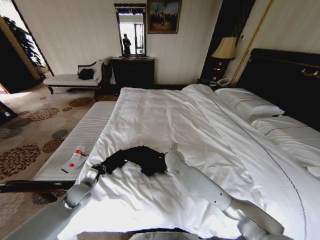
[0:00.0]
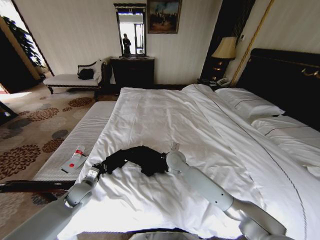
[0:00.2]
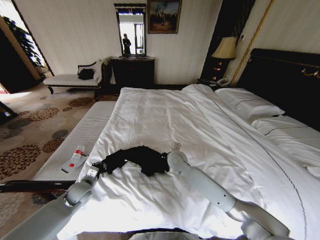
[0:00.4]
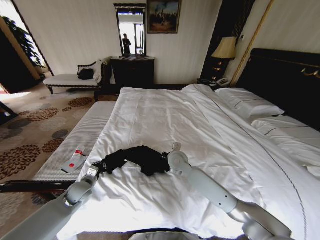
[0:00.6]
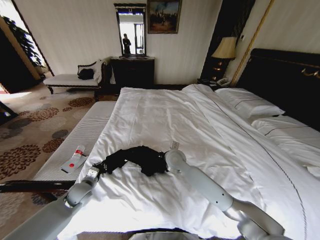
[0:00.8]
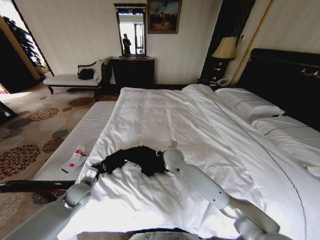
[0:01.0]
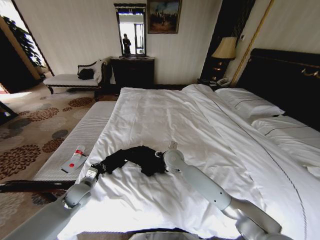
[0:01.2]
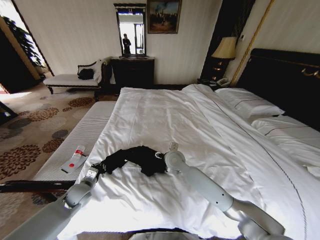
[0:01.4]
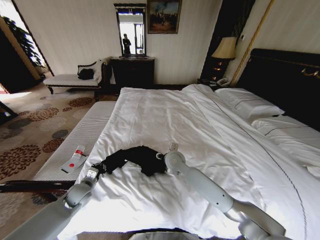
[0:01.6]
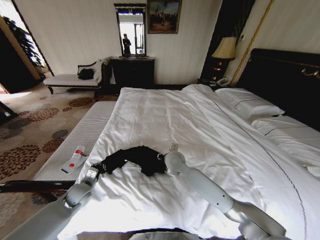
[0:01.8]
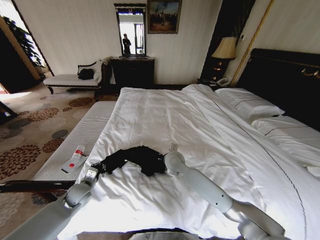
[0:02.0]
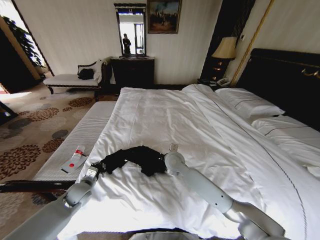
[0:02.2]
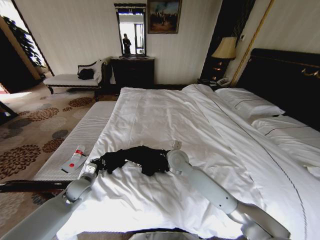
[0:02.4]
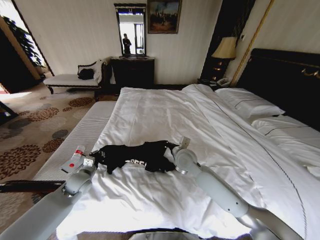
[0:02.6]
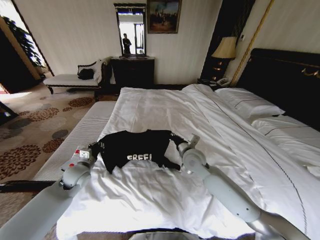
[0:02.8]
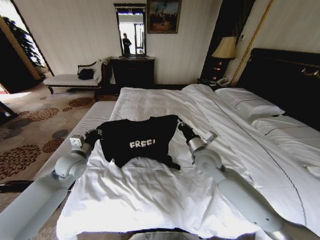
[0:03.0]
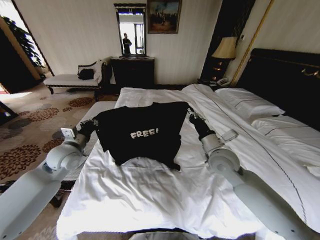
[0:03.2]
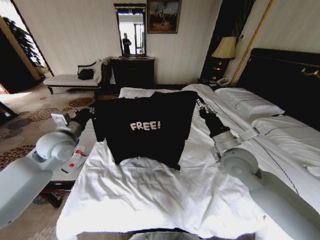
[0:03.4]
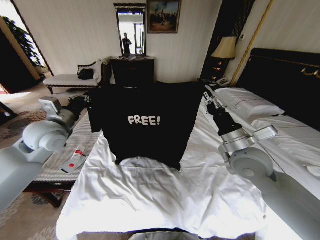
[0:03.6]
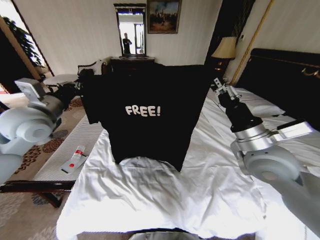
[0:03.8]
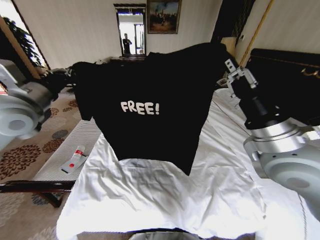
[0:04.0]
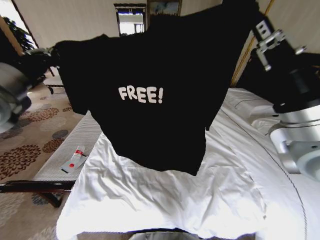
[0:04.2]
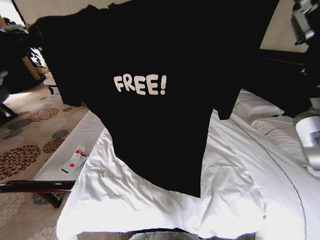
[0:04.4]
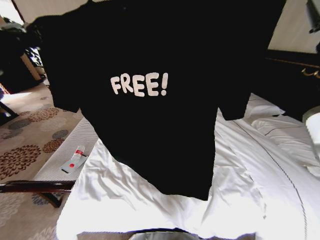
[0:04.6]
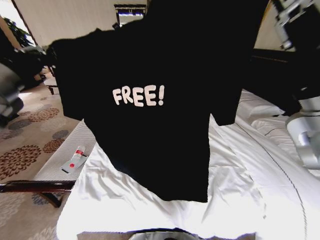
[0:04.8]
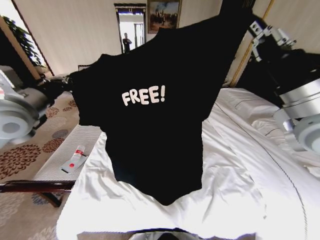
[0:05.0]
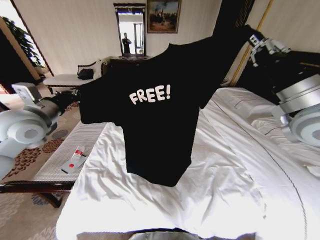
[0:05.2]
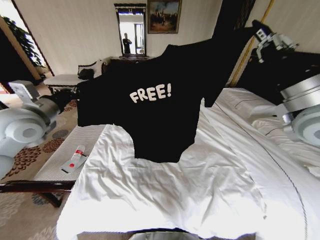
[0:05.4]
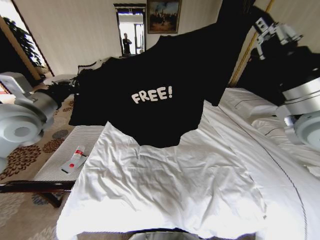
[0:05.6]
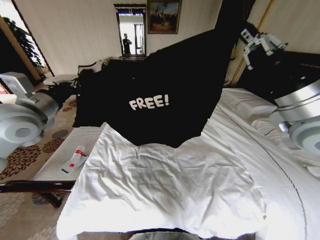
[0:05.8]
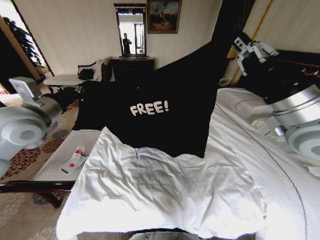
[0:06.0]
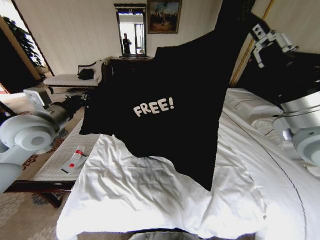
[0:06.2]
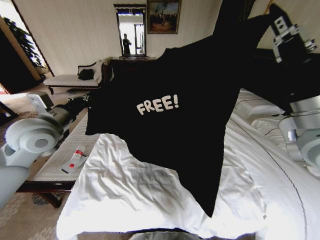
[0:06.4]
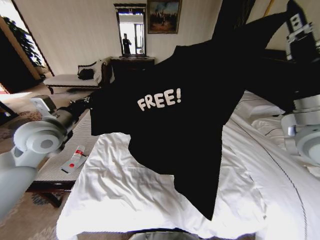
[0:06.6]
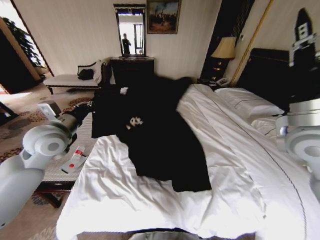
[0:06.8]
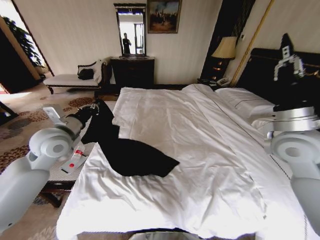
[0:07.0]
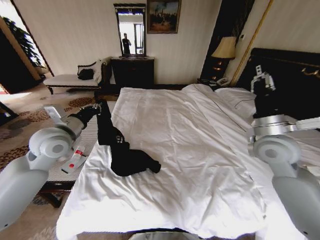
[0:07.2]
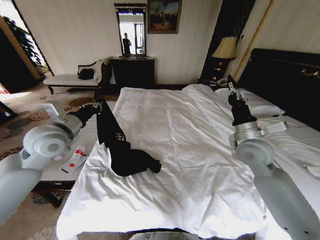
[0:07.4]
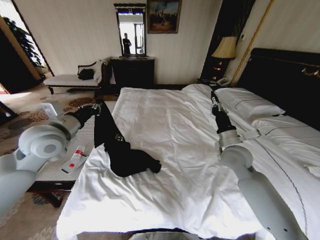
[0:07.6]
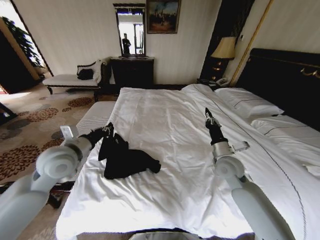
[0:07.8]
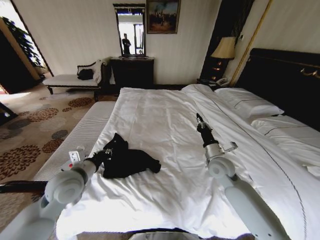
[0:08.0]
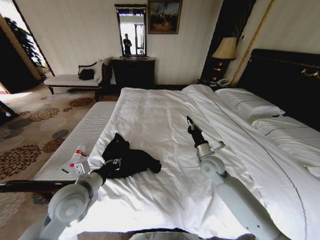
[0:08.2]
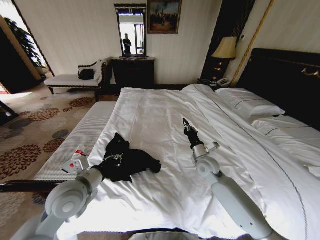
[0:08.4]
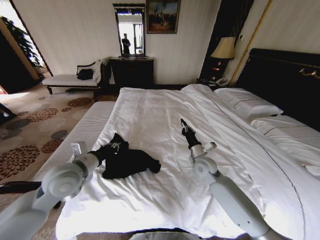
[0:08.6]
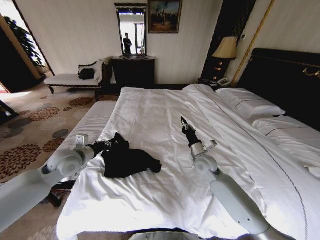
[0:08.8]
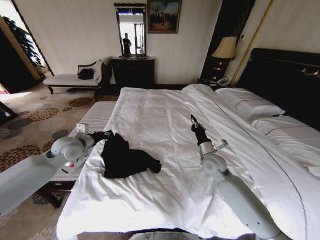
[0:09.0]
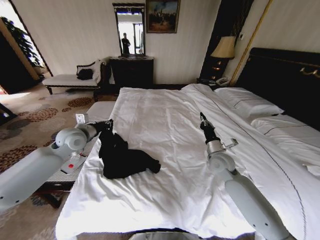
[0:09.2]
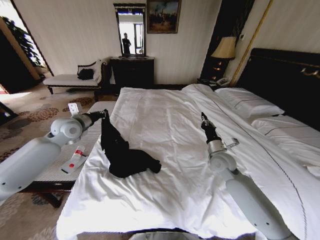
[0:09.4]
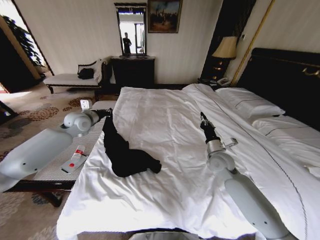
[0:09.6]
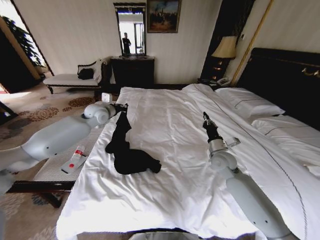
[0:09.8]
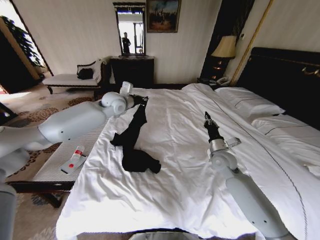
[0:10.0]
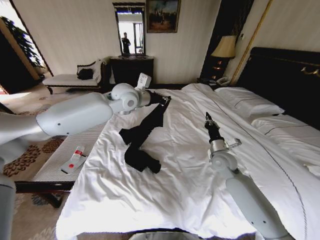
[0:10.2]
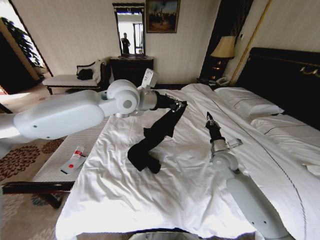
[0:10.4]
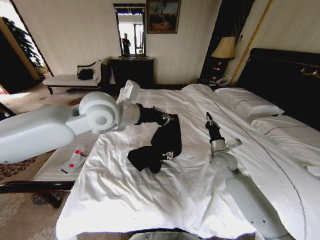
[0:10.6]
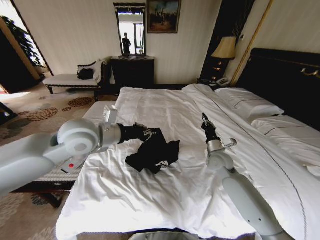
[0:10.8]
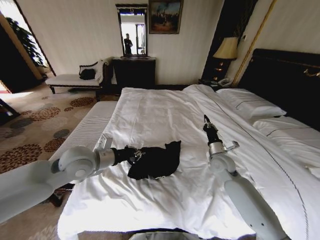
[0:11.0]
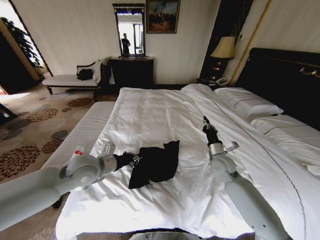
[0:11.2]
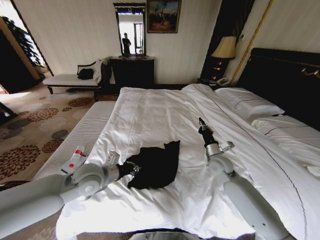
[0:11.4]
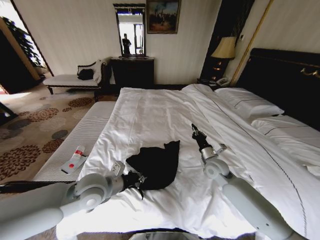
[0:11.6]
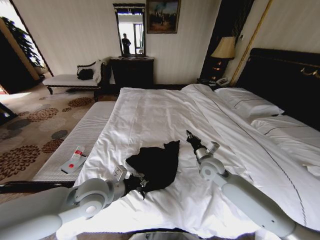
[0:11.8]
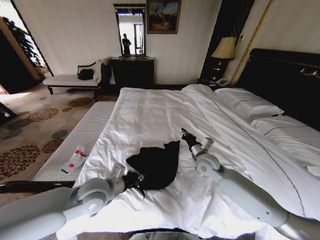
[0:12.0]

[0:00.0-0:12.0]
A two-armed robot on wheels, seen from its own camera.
Task of the whole recording: Fold the clothes on the bed.
0:01.6 to 0:03.0: The left gripper shifts roughly 15 cm upward; the right gripper shifts about 15 cm to the right and upward, and closes.
0:03.0 to 0:04.4: The left gripper is displaced upward by about 30 cm, while the right gripper heads upward and backward, covering roughly 30 cm.
0:04.4 to 0:06.0: The right gripper moves forward, roughly 5 cm; the left gripper heads downward and forward, covering approximately 10 cm.
0:06.0 to 0:07.6: The right gripper is displaced downward and forward by about 20 cm, while the left gripper heads downward, covering some 5 cm.
0:07.6 to 0:09.0: Both grippers move downward, roughly 10 cm. The left gripper moves roughly 10 cm backward and comes back.
0:09.0 to 0:10.4: The left gripper heads to the right and upward, covering approximately 30 cm, while the right gripper heads to the right, covering approximately 5 cm.
0:10.4 to 0:12.0: The left gripper goes approximately 30 cm downward and backward. Meanwhile the right gripper heads to the left, covering about 10 cm.

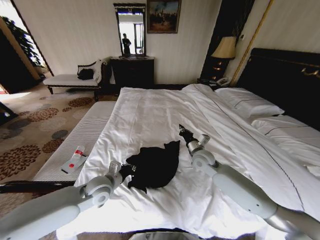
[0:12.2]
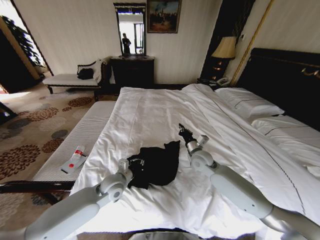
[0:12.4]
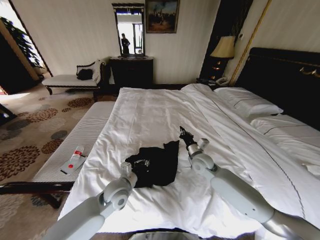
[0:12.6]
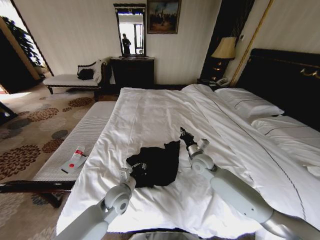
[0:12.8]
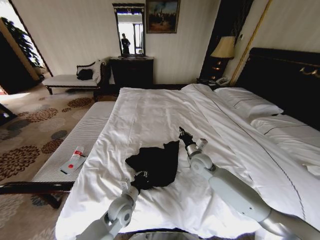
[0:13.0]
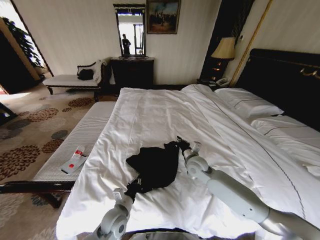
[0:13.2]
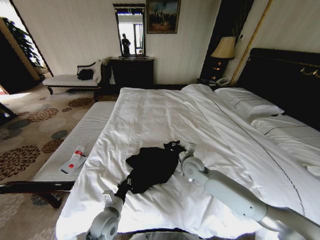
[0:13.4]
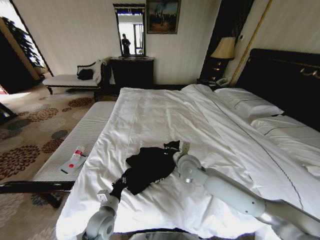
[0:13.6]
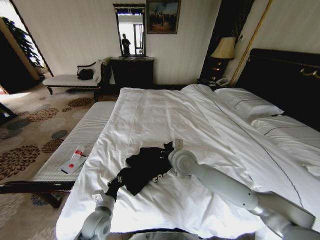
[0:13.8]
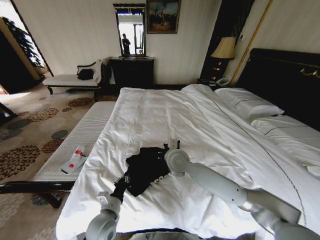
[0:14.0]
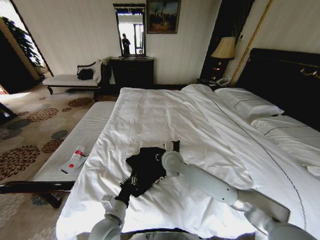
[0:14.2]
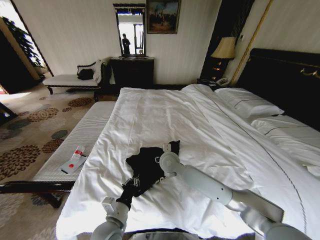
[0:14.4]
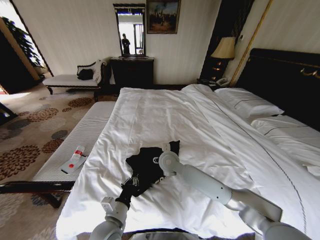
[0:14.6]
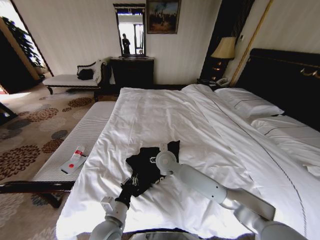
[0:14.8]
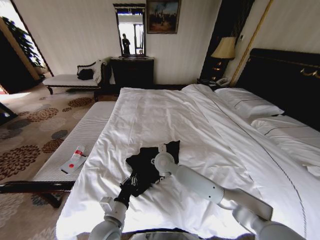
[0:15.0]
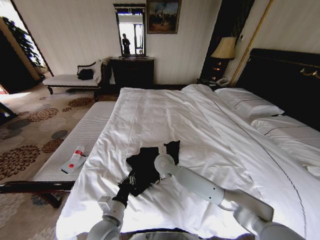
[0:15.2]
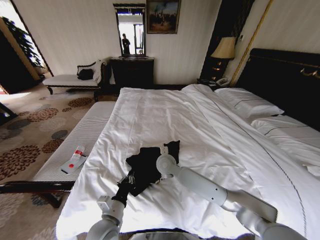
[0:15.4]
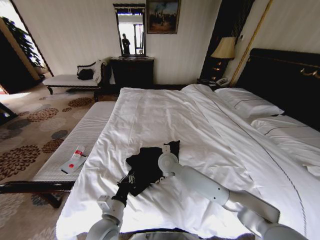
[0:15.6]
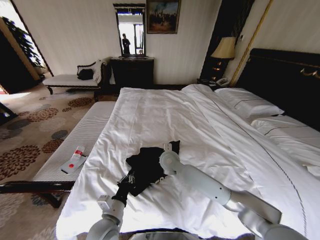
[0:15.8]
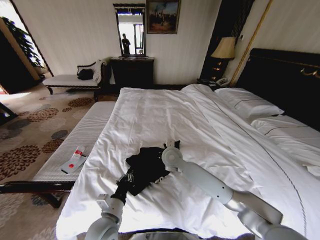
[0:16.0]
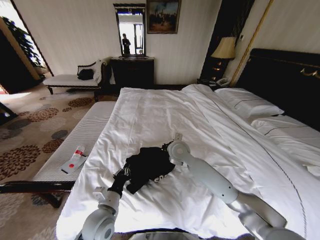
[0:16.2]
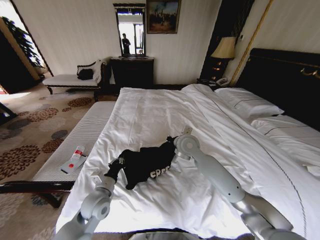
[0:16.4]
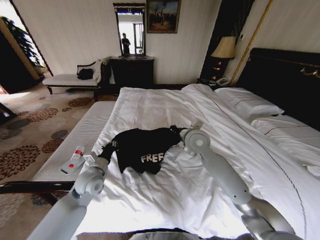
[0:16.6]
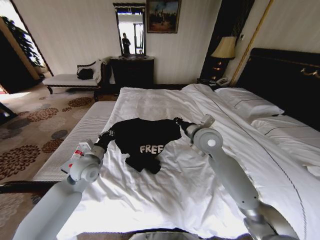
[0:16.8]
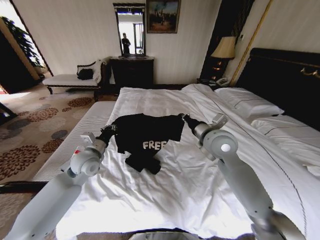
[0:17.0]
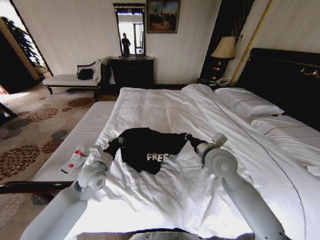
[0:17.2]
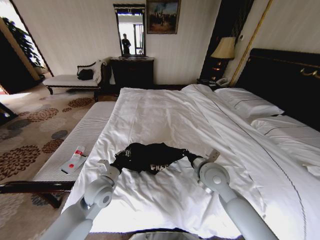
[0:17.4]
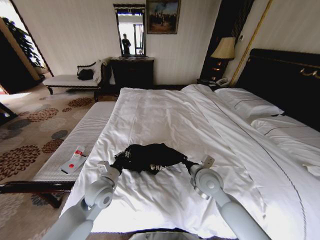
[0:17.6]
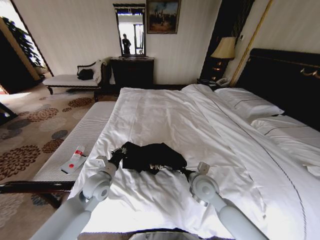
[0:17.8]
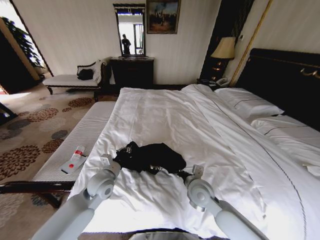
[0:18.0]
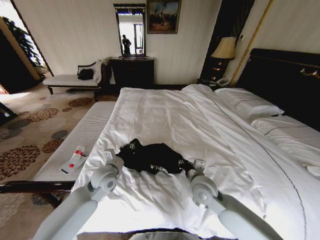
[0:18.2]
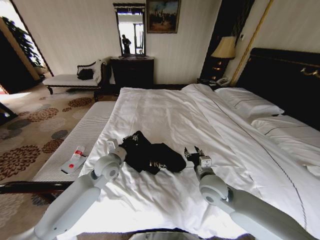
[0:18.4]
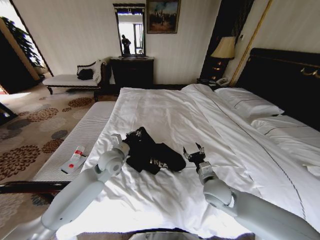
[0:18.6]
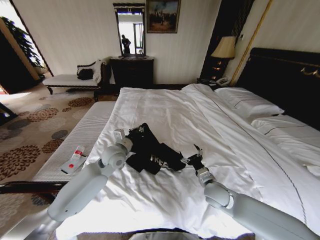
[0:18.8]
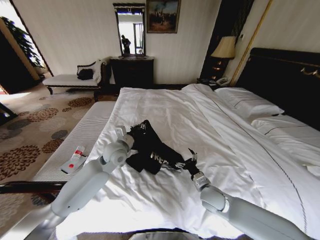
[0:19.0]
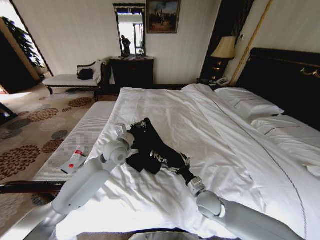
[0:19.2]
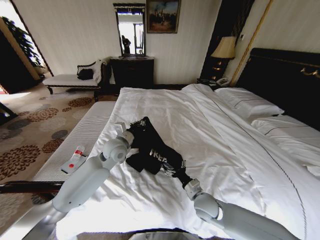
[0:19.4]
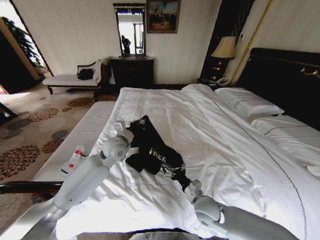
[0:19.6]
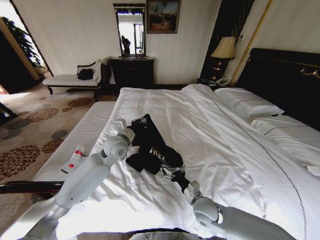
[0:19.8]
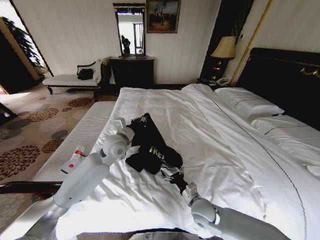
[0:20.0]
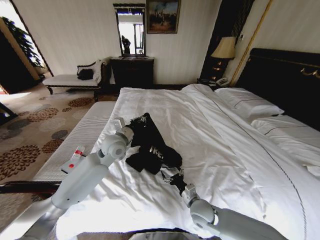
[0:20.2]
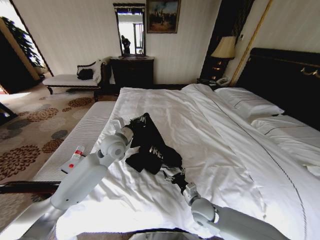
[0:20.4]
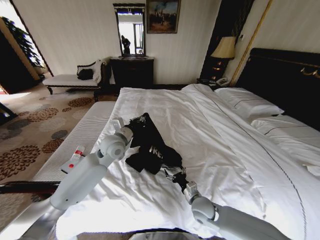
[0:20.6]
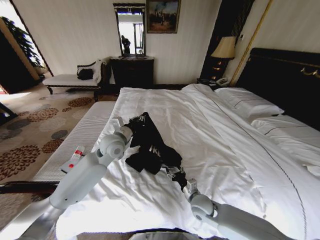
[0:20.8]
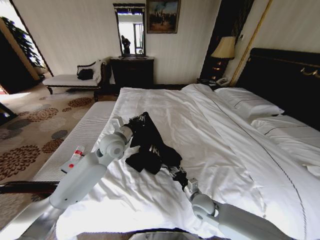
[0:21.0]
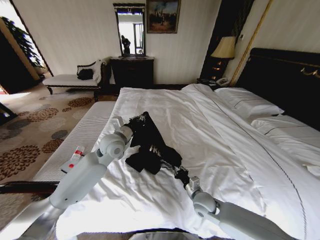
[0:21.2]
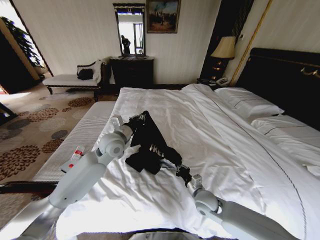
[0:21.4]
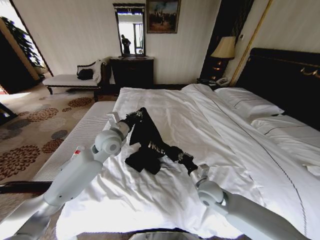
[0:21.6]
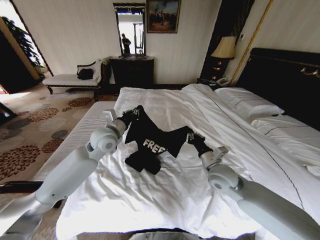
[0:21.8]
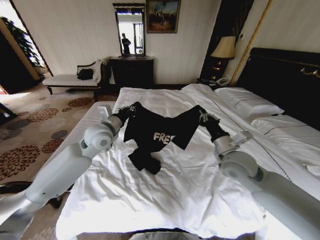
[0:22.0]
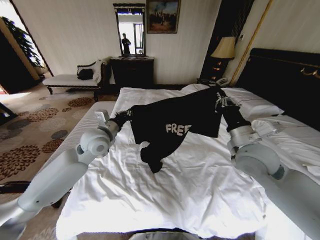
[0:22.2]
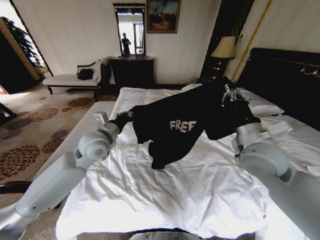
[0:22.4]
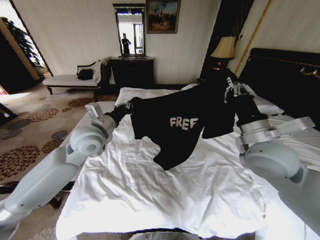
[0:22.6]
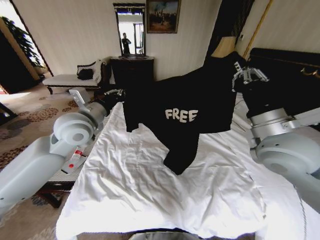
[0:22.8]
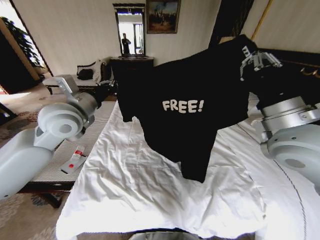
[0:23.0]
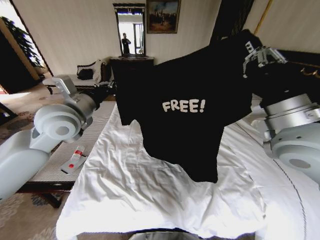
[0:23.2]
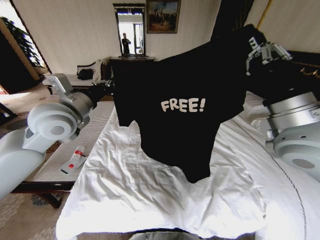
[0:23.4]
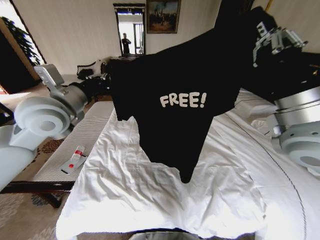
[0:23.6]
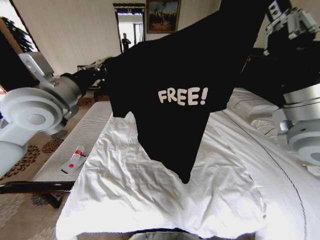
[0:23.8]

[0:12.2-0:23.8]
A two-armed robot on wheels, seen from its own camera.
Task of the whole recording: Fold the clothes on the bed.
0:12.2 to 0:13.6: The left gripper is displaced downward and backward by approximately 15 cm, while the right gripper travels to the left by about 10 cm.
0:13.6 to 0:15.0: The left gripper moves upward, some 5 cm. The right gripper moves to the left, about 10 cm, and opens its fingers.
0:15.0 to 0:16.6: The left gripper shifts approximately 15 cm forward and to the left; the right gripper travels upward and to the right by roughly 15 cm, and closes up.
0:16.6 to 0:18.0: The right gripper heads downward and backward, covering some 20 cm. The left gripper travels forward and back again, some 5 cm each way.
0:18.0 to 0:19.4: The left gripper shifts approximately 15 cm forward and upward, while the right gripper goes approximately 10 cm downward, and opens.
0:19.4 to 0:21.0: The right gripper closes up.
0:21.0 to 0:22.4: The right gripper shifts some 30 cm upward, and closes its fingers. The left gripper moves about 5 cm.
0:22.4 to 0:23.8: The right gripper heads upward, covering about 15 cm, while the left gripper shifts approximately 15 cm upward and to the left.
